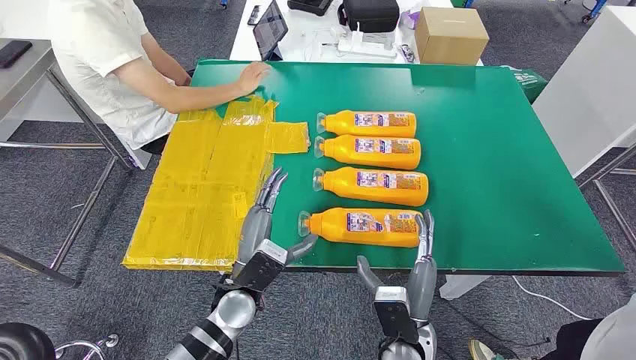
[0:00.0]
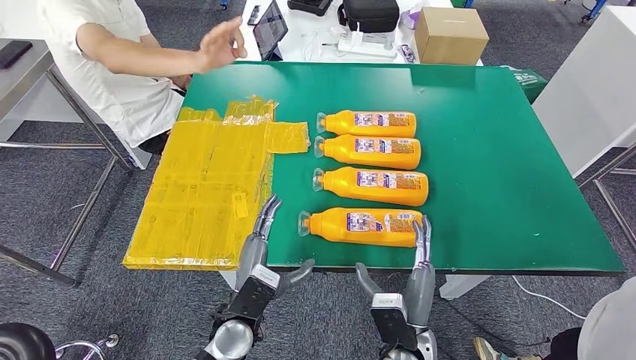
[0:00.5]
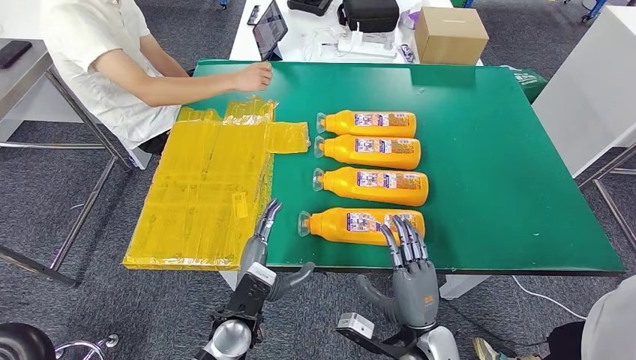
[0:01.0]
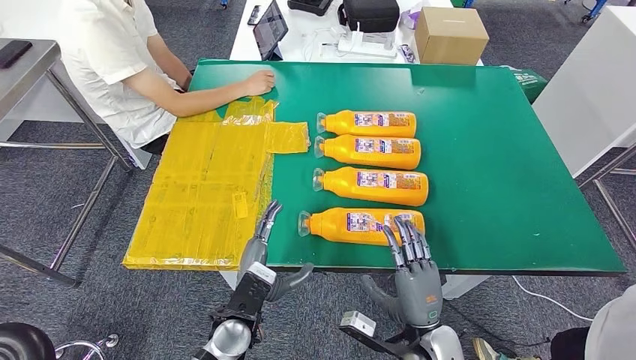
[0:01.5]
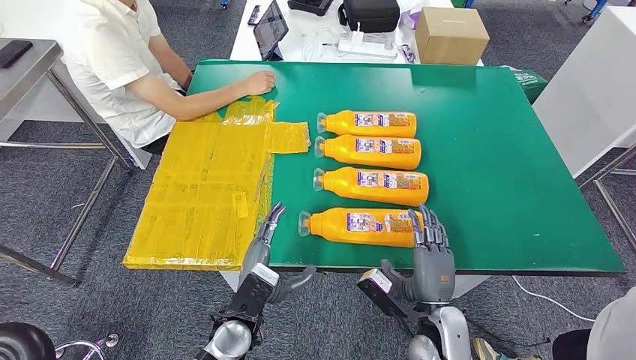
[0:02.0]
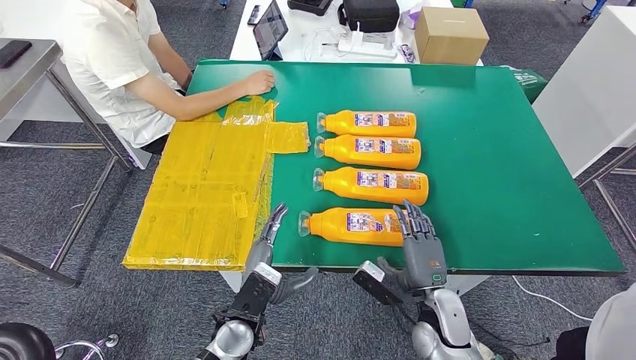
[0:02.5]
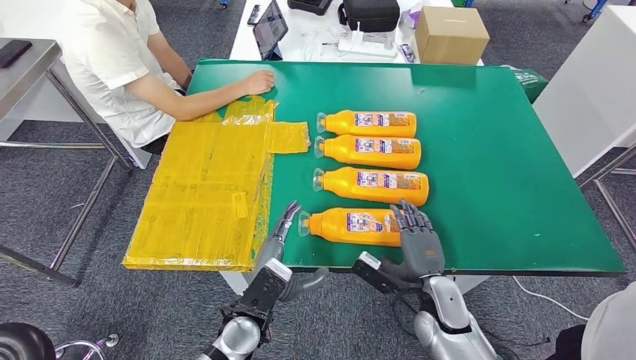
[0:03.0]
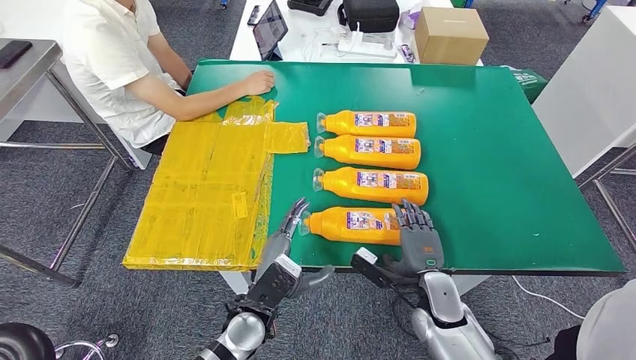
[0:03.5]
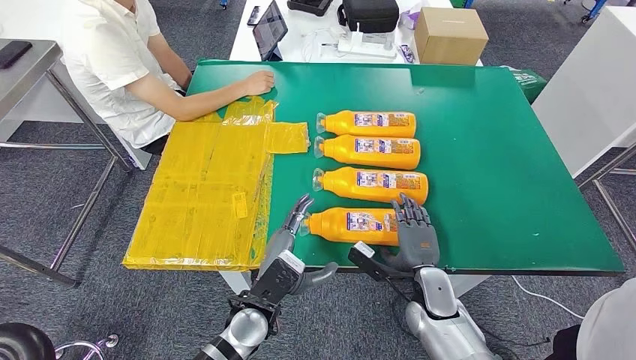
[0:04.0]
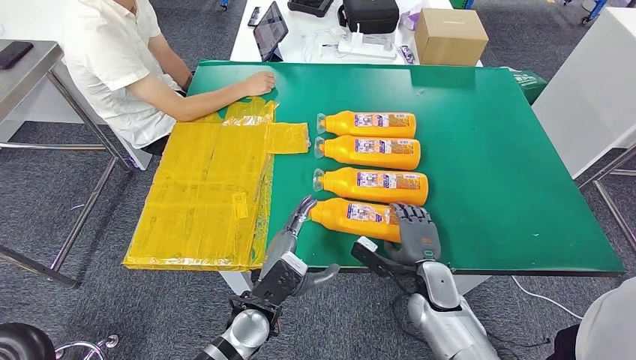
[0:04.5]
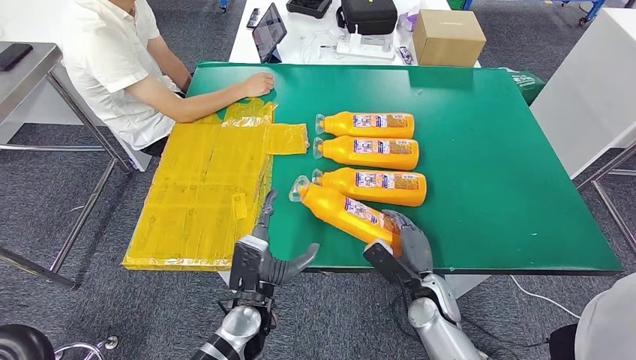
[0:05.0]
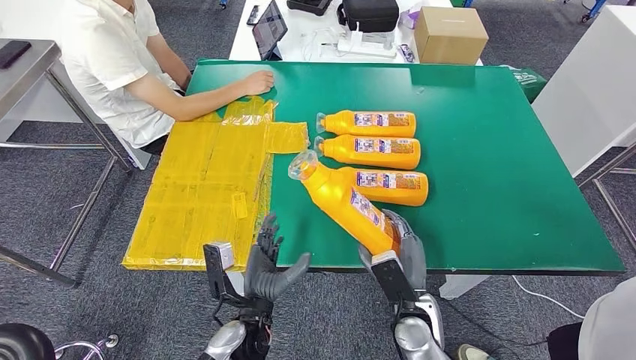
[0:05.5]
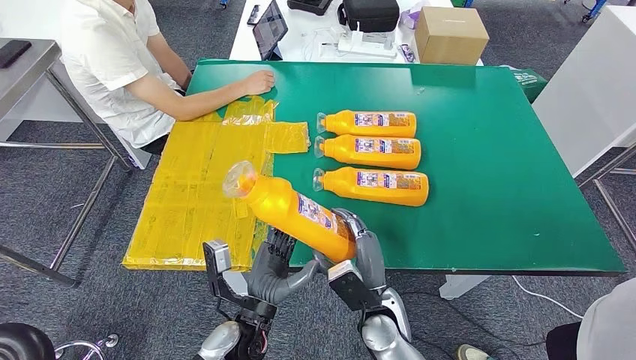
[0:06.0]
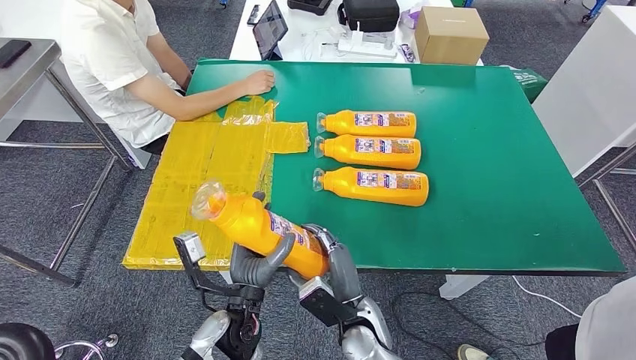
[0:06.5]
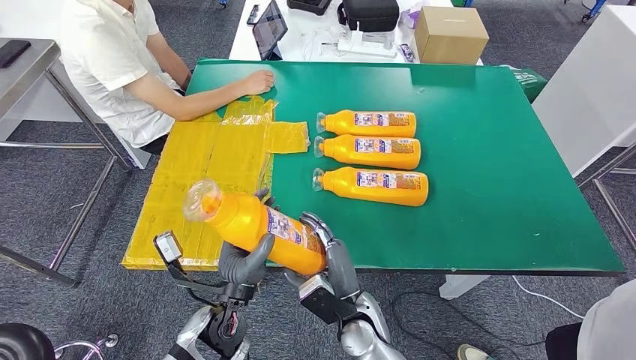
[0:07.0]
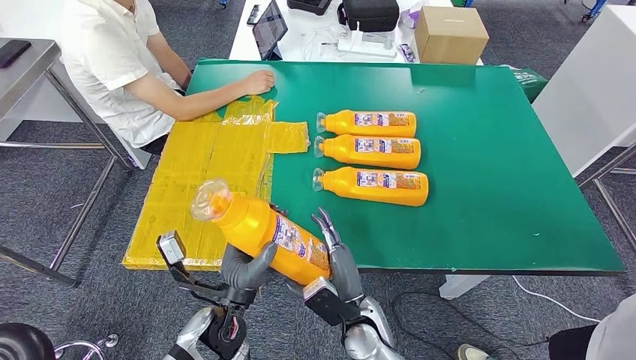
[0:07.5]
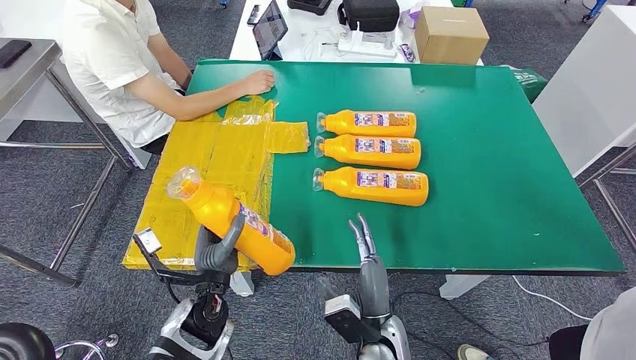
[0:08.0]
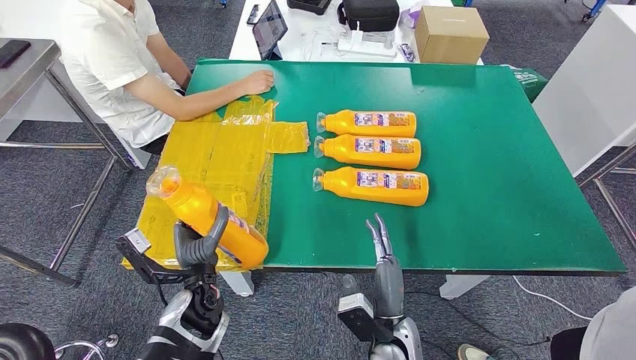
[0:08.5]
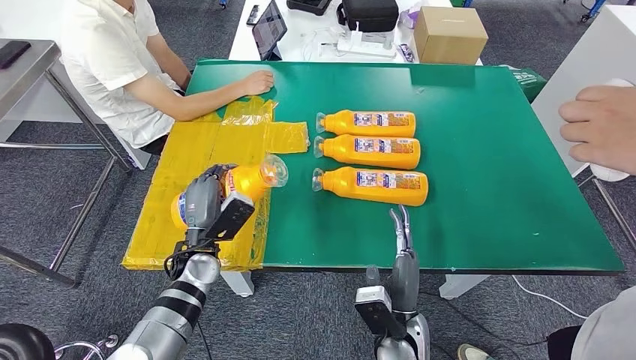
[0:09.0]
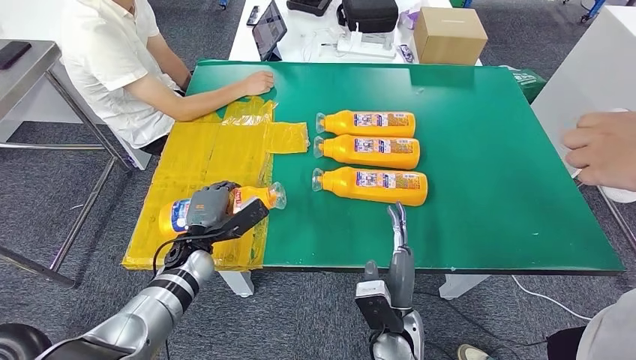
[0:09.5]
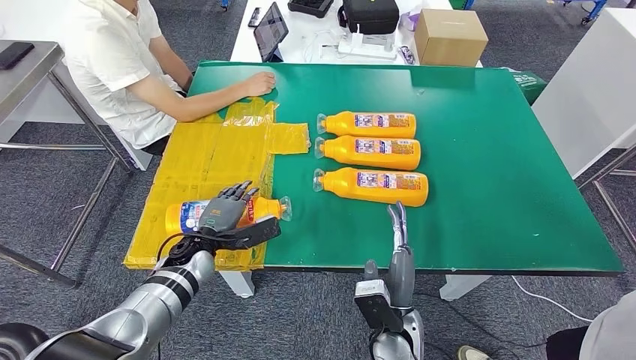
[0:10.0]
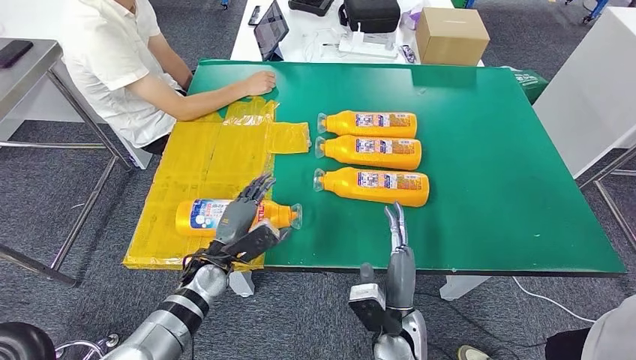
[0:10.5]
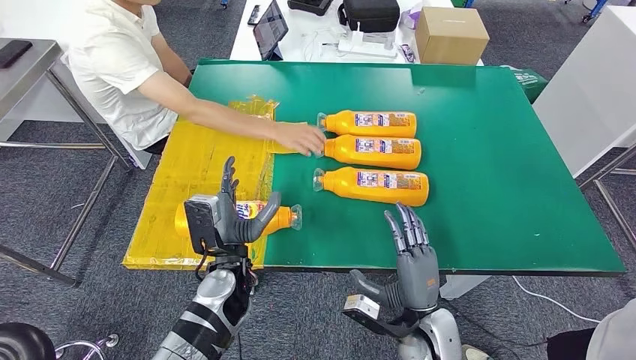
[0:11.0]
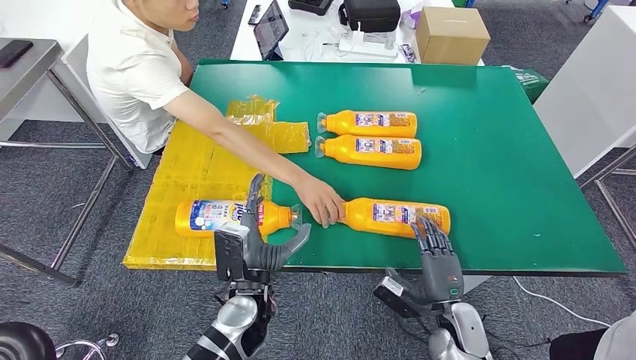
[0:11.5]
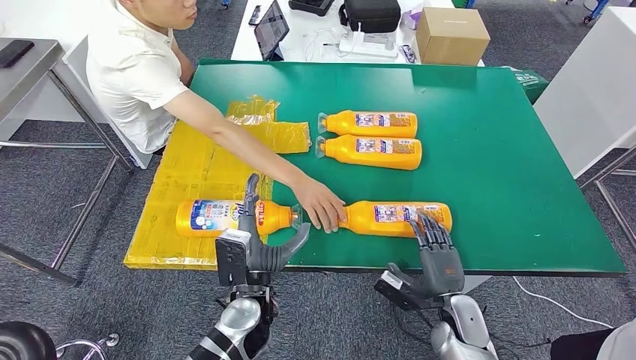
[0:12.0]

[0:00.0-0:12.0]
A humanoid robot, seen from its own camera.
Step, 0:00.0 to 0:06.0: Take the fast-moving consumer goods bottle from the table.
Step, 0:06.5 to 0:10.5: Flip the fast-moving consumer goods bottle to the front side.
0:02.0 to 0:04.0: The right hand travels forward by approximately 5 cm.
0:04.0 to 0:06.0: The right hand goes some 10 cm to the left.
0:06.0 to 0:08.0: The left hand moves to the left, approximately 5 cm.
0:08.0 to 0:10.0: The left hand travels forward and to the left by roughly 10 cm.

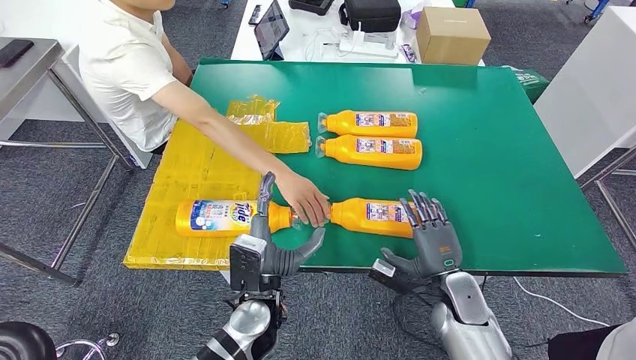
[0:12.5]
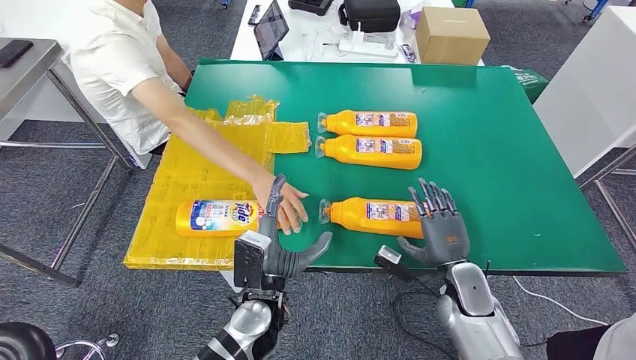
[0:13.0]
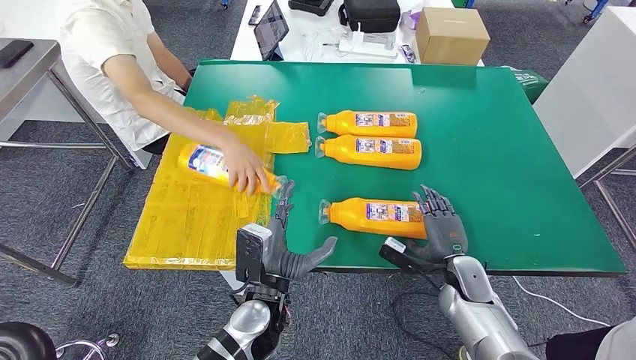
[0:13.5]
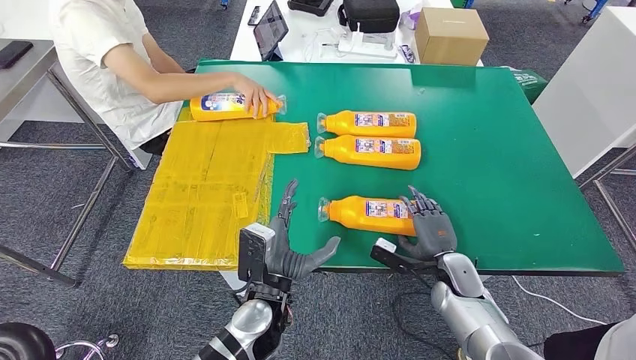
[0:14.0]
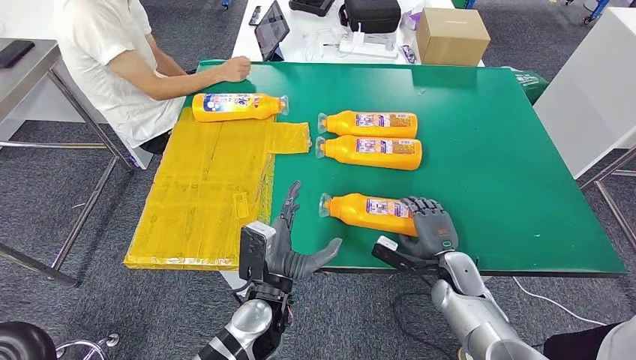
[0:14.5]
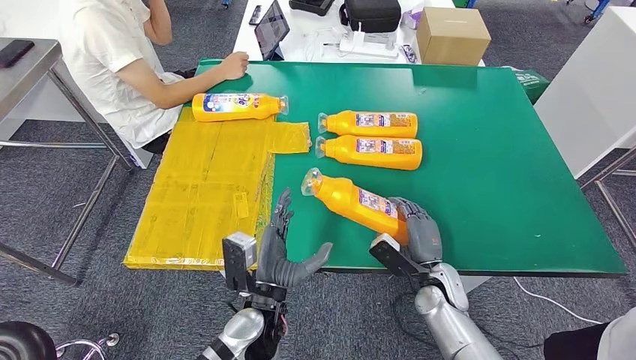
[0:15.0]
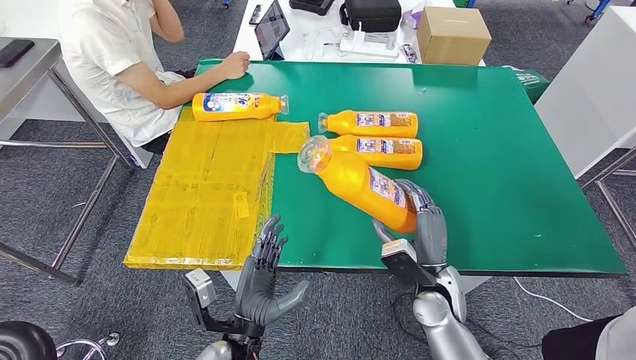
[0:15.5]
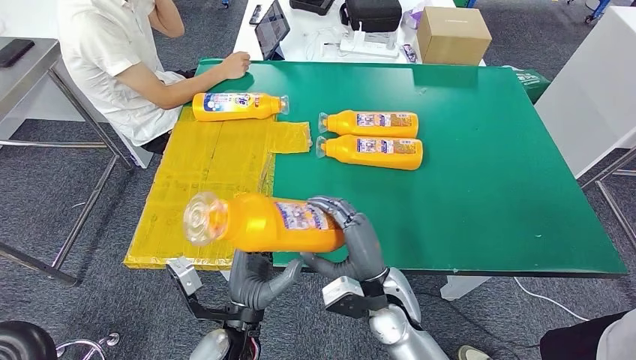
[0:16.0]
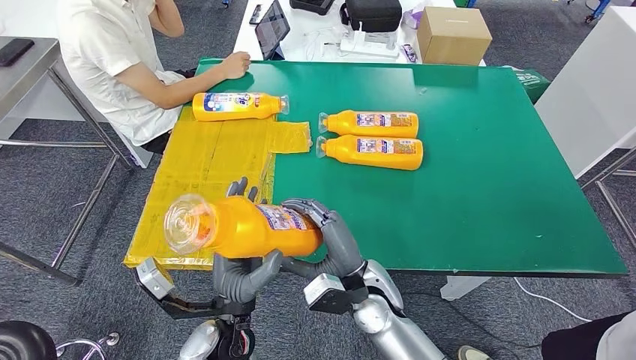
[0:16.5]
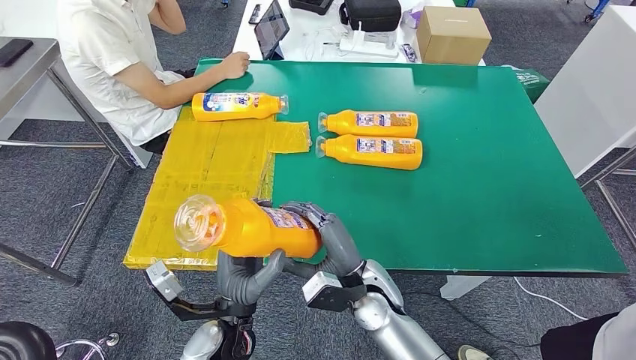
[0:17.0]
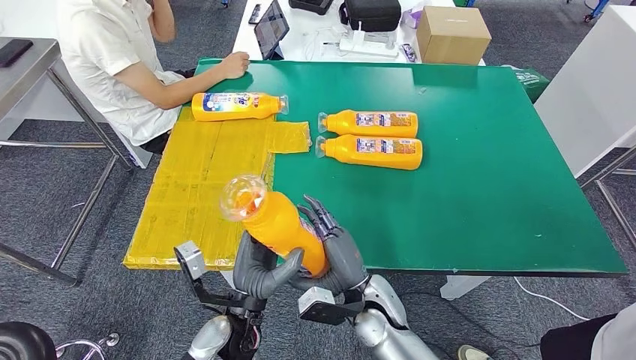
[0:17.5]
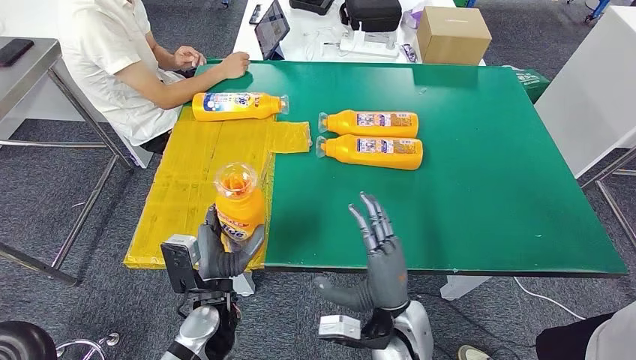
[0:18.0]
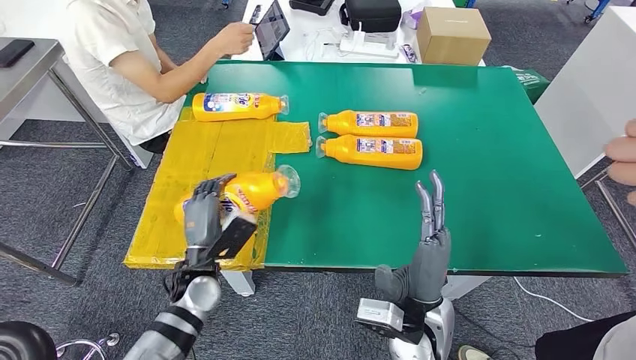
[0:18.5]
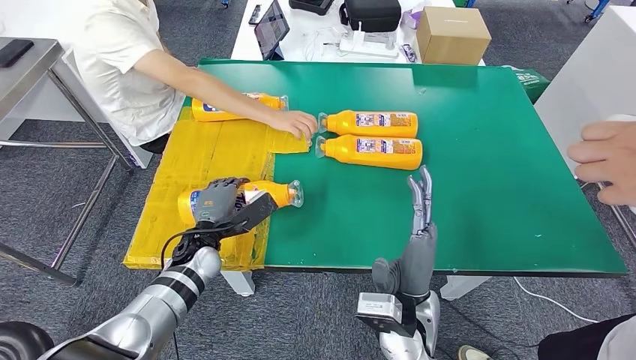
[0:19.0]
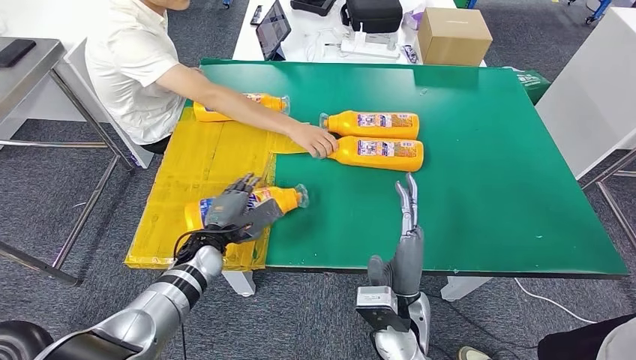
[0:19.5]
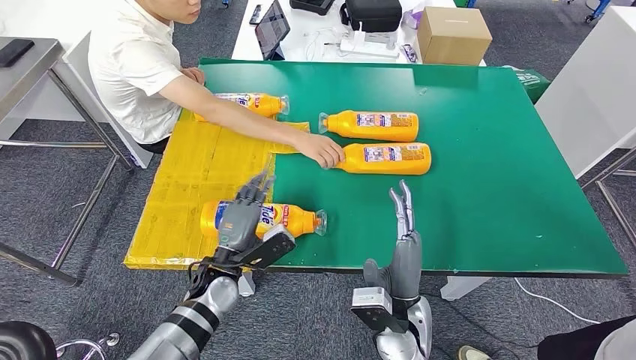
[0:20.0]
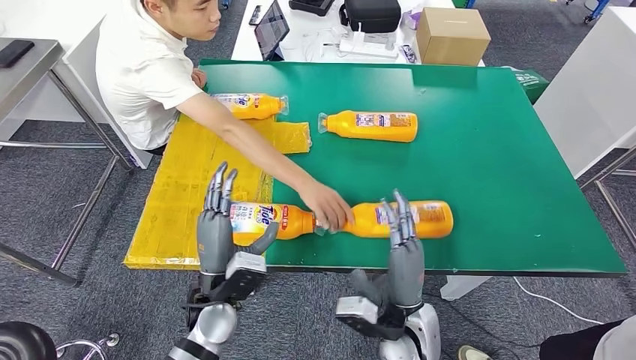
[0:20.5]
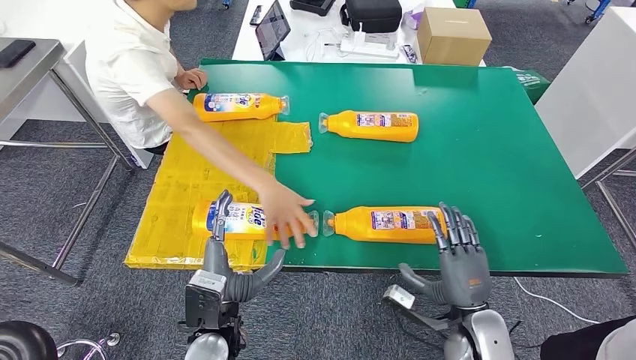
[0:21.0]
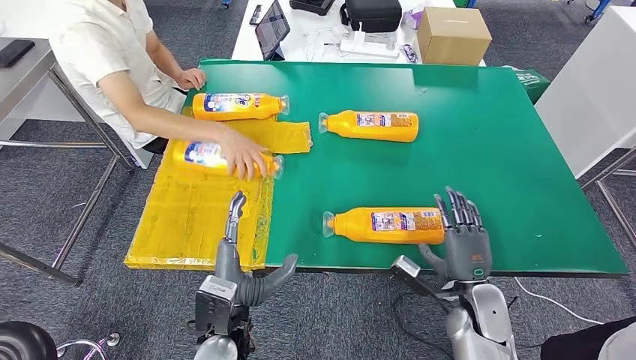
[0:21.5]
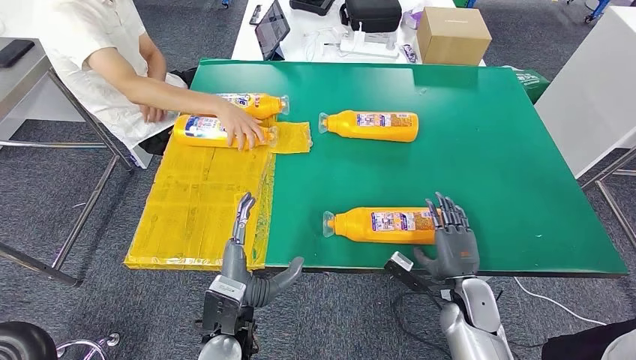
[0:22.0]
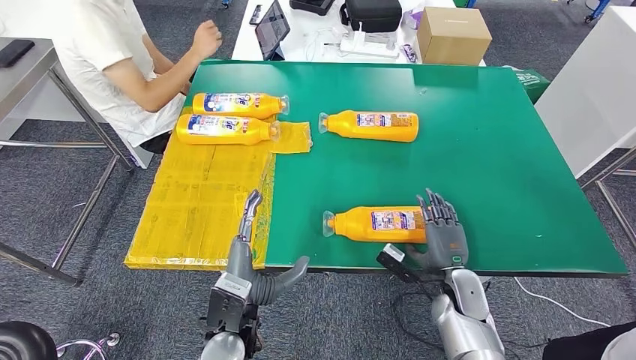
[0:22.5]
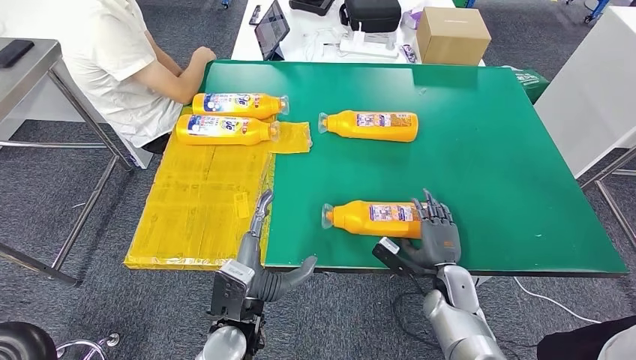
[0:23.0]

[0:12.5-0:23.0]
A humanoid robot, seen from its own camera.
Step, 0:12.5 to 0:15.5: Pick up the fast-moving consumer goods bottle from the table.
Step, 0:16.0 to 0:20.0: Flip the fast-moving consumer goods bottle to the front side.
0:12.5 to 0:14.5: There are only small adjustments of the hands.
0:14.5 to 0:16.5: The right hand moves to the left, roughly 20 cm; the left hand ends up some 5 cm from where it was.
0:21.0 to 0:23.0: The right hand moves forward and downward, about 10 cm.
